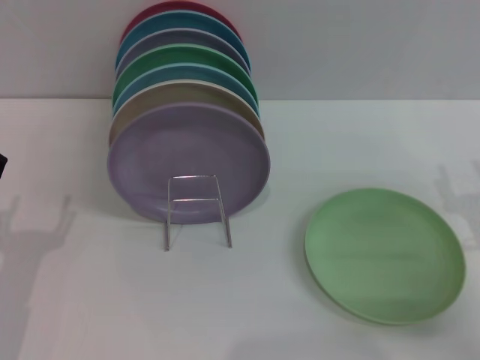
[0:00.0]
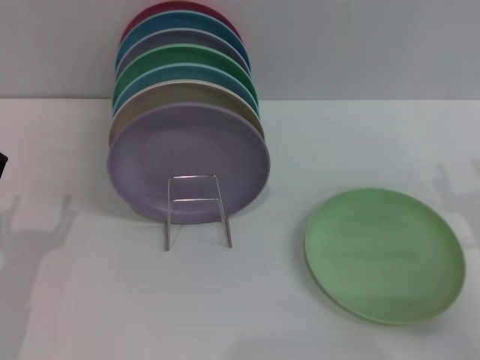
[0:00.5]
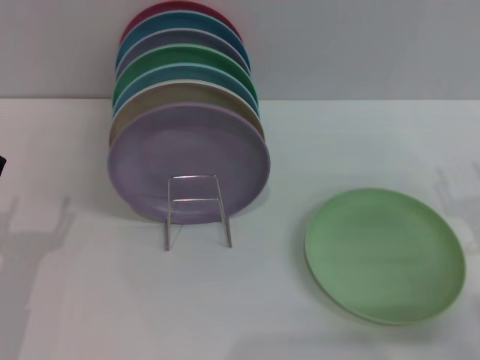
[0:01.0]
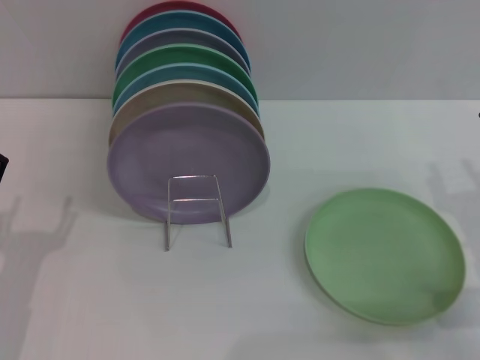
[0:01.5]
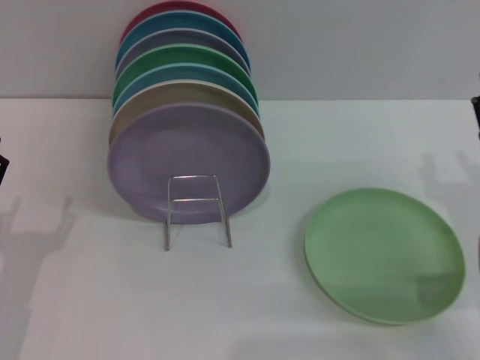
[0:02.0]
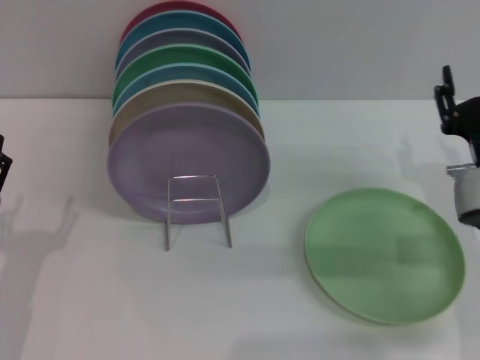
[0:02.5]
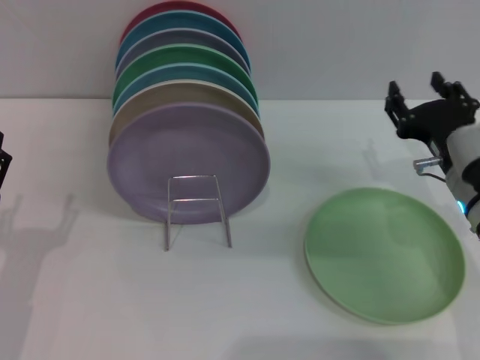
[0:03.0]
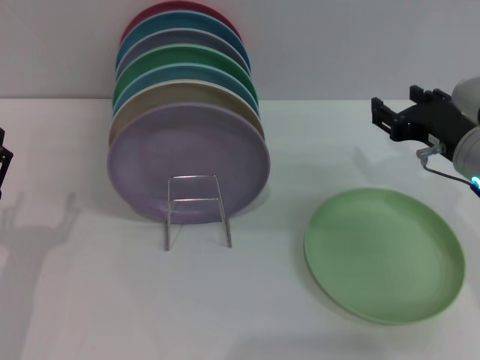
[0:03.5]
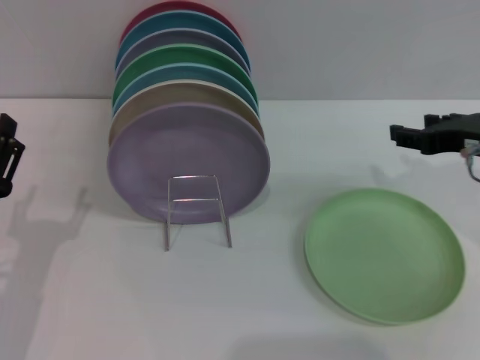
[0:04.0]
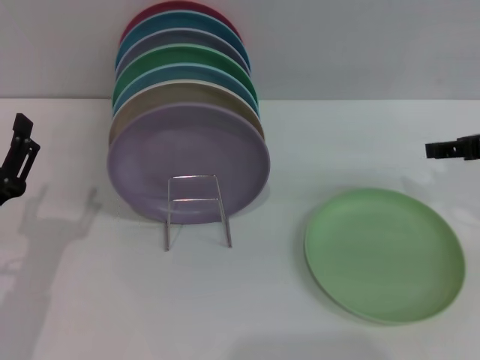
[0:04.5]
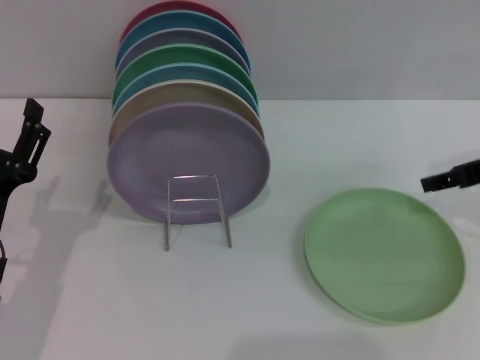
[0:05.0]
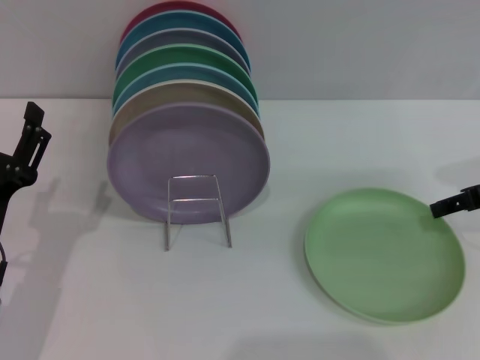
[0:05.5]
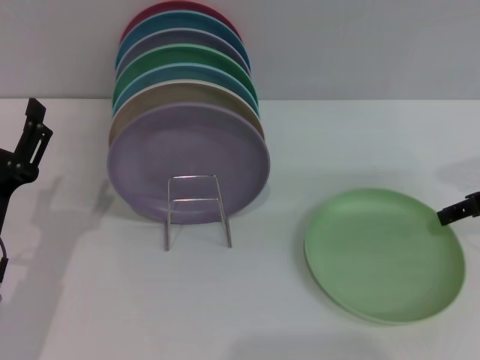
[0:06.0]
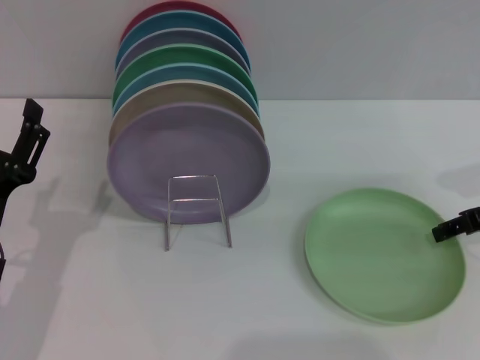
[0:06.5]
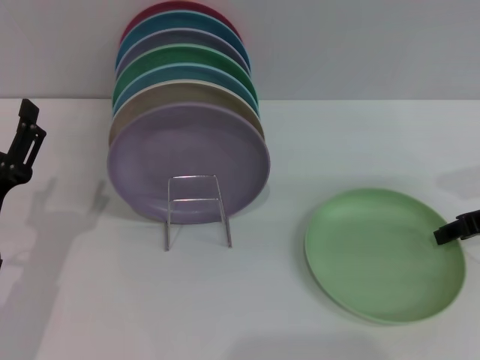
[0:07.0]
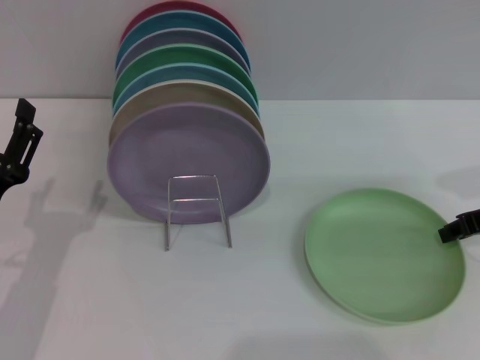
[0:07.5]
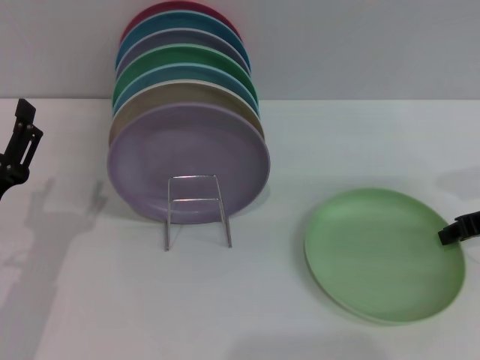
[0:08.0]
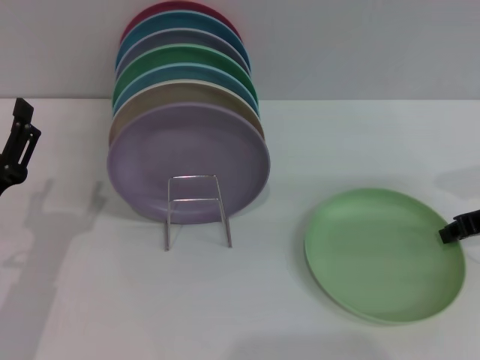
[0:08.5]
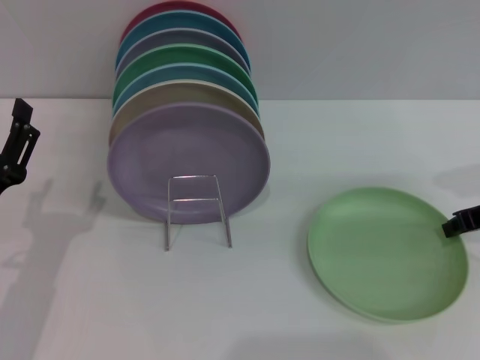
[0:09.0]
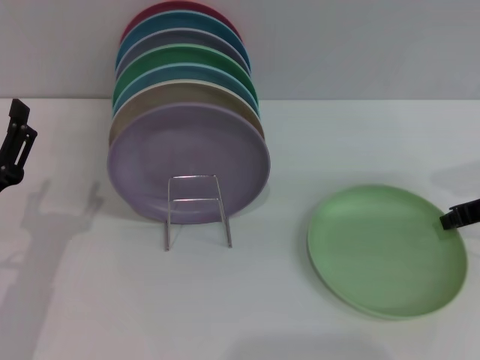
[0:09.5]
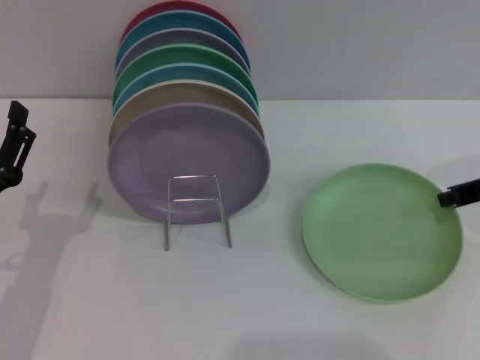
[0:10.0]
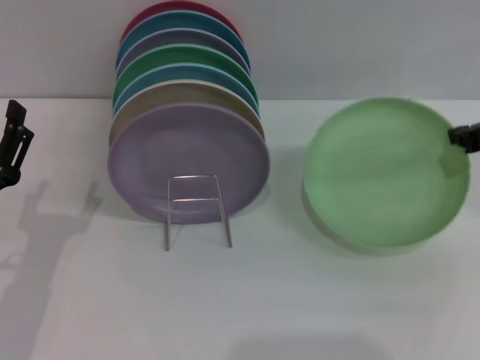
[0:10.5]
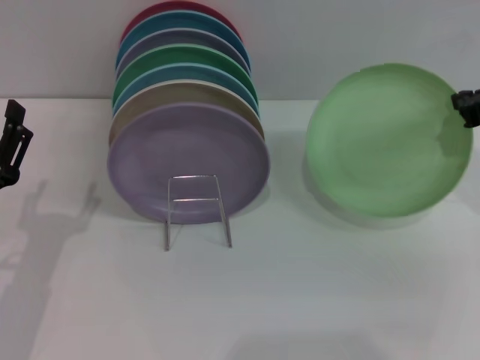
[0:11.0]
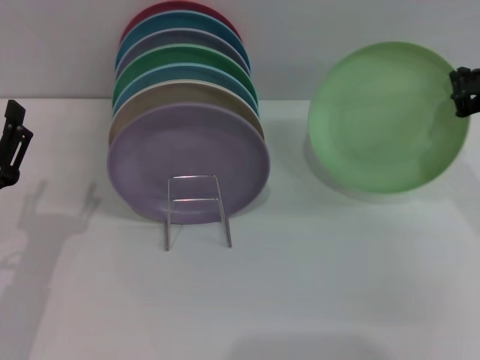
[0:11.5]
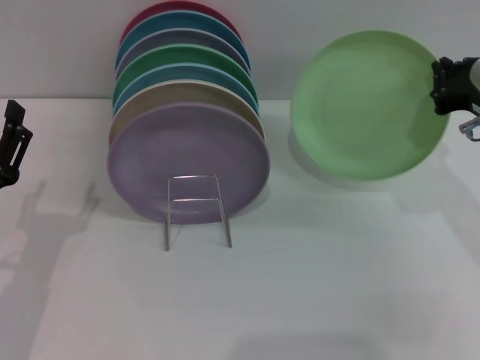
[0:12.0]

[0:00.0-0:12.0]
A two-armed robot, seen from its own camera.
Task of the whole recording: Grip the plate with one hand, pass it to the other, then set it on the shelf.
0:02.0 to 0:04.0: The right gripper goes some 10 cm upward and forward.
0:06.0 to 0:08.0: The right gripper closes up.
0:08.0 to 0:10.0: The right gripper closes its fingers.
0:10.0 to 0:12.0: The right gripper moves to the left, approximately 5 cm.

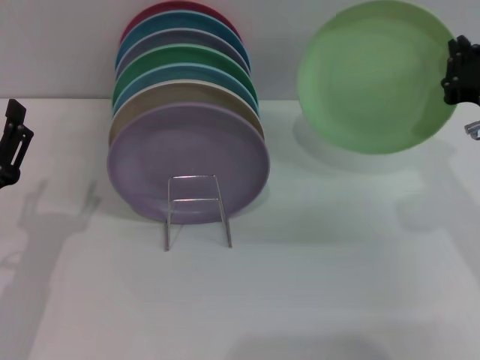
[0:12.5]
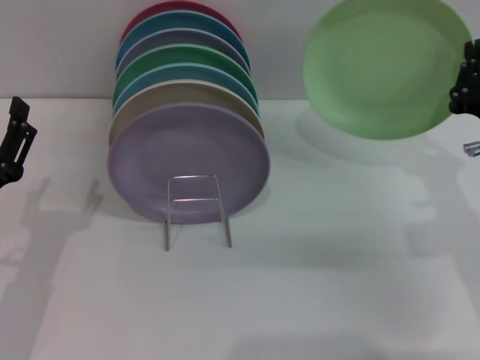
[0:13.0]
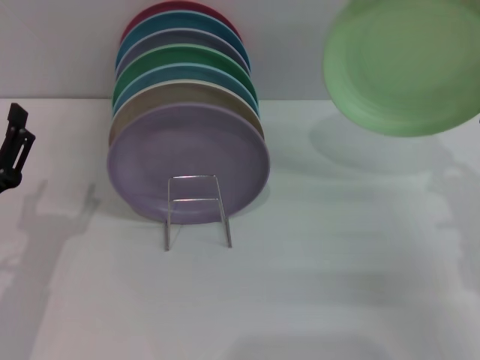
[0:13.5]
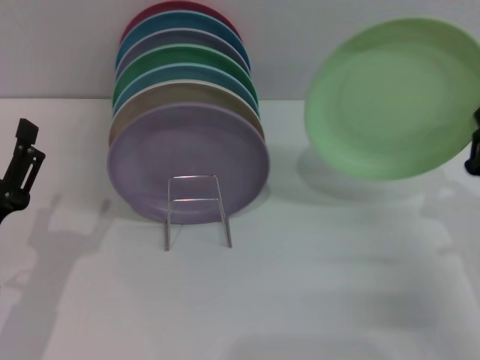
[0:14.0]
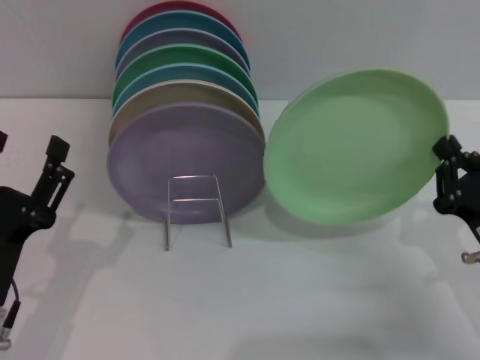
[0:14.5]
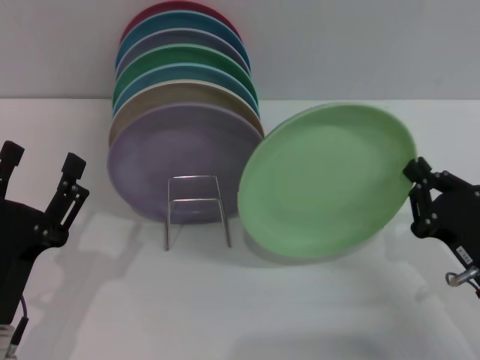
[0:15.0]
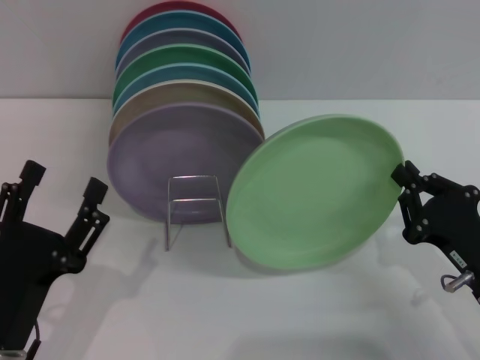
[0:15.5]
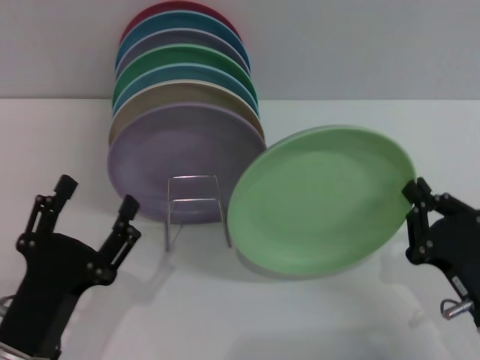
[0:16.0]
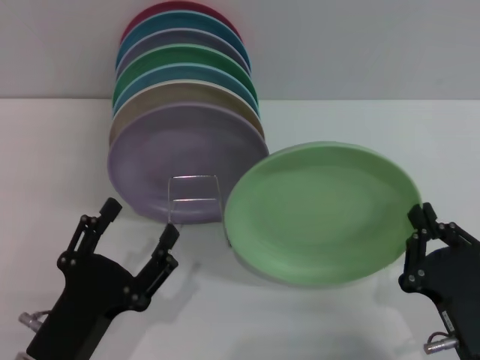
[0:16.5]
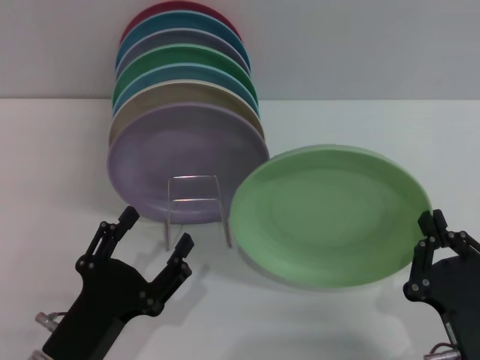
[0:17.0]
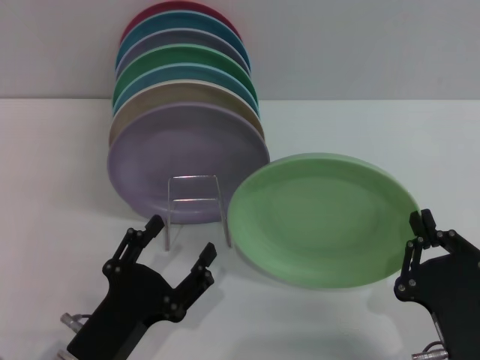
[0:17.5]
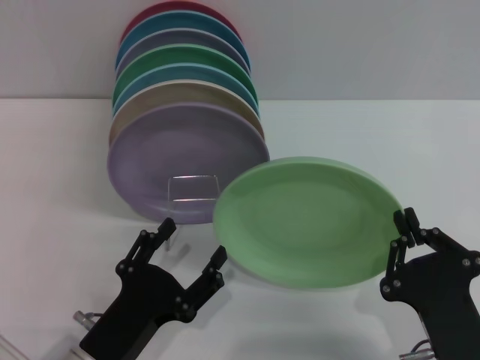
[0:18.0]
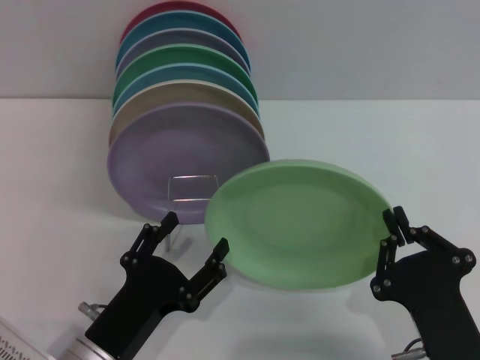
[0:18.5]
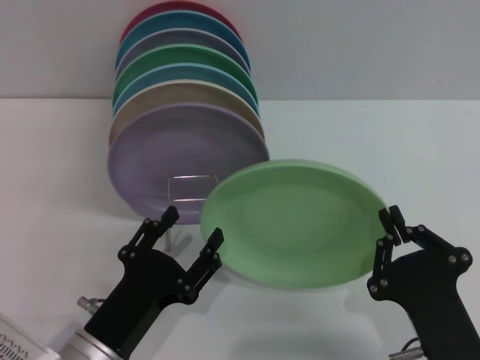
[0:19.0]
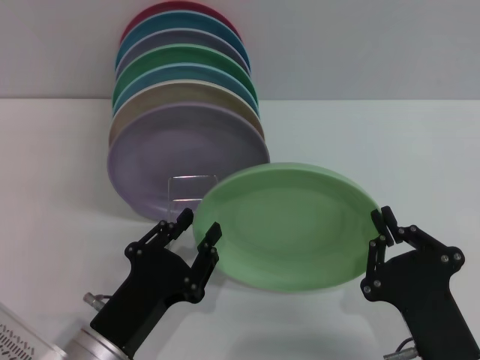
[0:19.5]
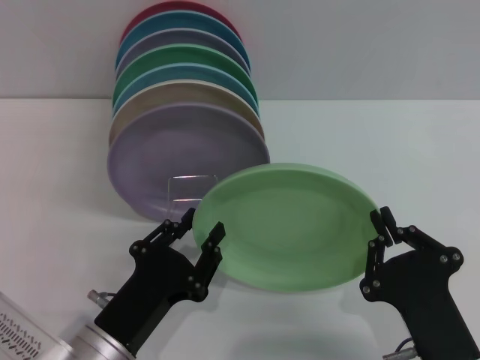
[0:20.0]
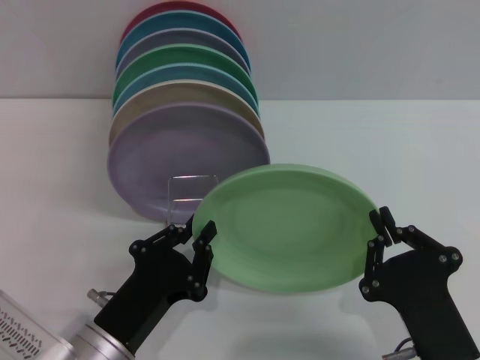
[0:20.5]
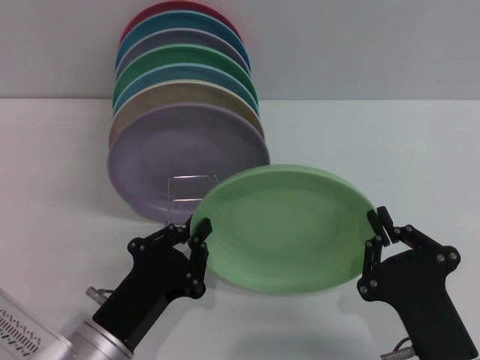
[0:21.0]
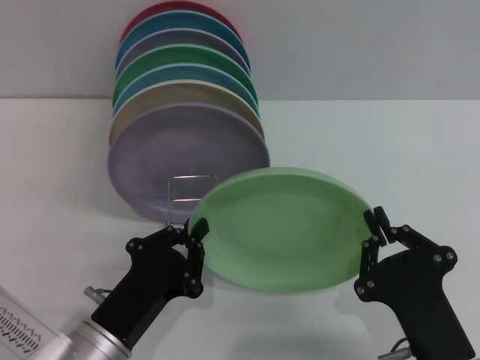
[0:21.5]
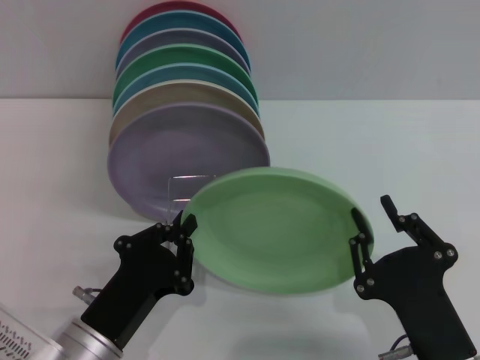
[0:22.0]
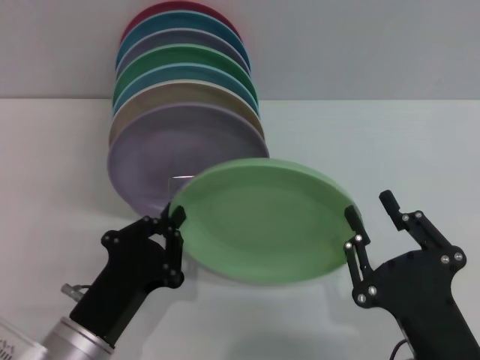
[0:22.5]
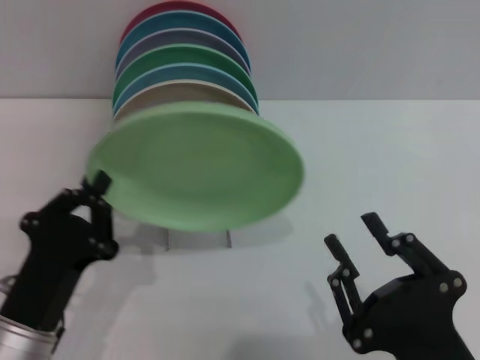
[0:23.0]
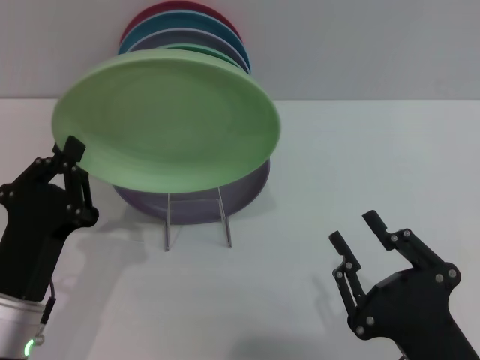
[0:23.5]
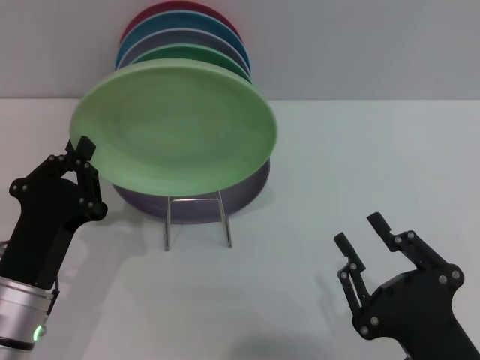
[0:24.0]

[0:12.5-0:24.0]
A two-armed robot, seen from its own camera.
Task of the whole recording: Grip the plate with one hand, pass it to the other, then set it on the shelf.
Step, 0:13.5 to 0:22.5: Pass the plate from the right gripper to the left gripper.
0:12.5 to 0:14.5: The right gripper heads downward and backward, covering approximately 15 cm.
0:14.5 to 0:16.5: The left gripper changes place by approximately 5 cm. The right gripper is displaced backward and to the left by some 10 cm.
0:16.5 to 0:18.5: The grippers make only small movements.
0:18.5 to 0:20.0: The left gripper closes its fingers.
0:20.0 to 0:22.0: The left gripper closes up.
0:22.0 to 0:24.0: The left gripper changes place by some 5 cm.

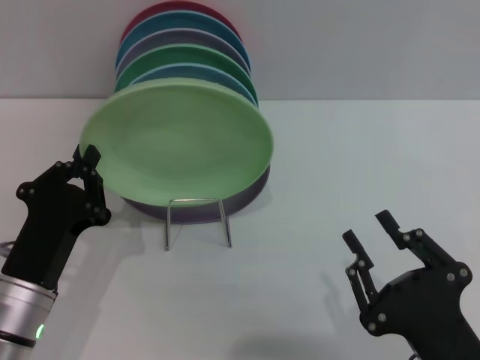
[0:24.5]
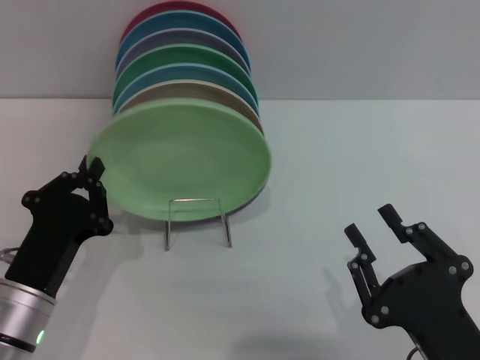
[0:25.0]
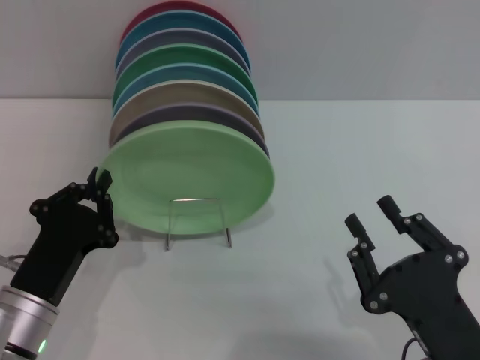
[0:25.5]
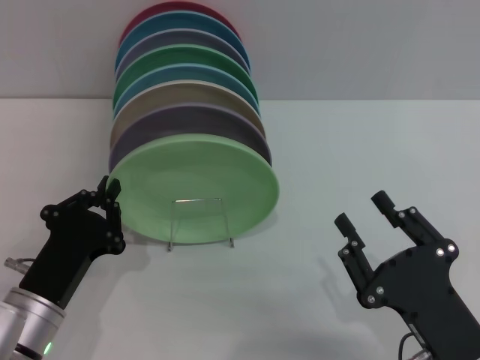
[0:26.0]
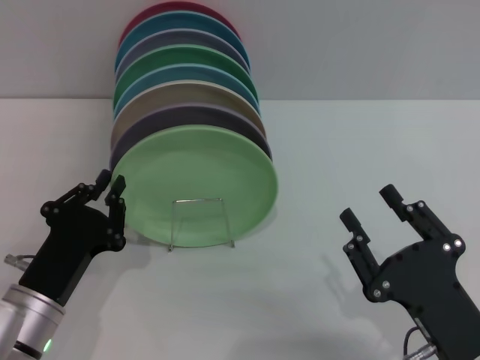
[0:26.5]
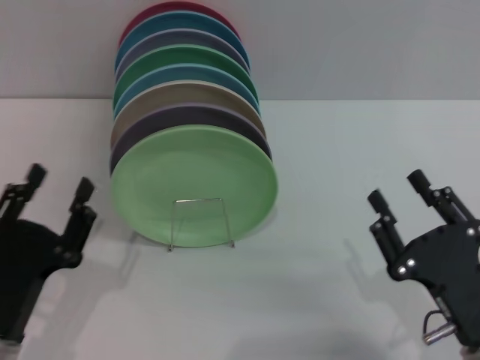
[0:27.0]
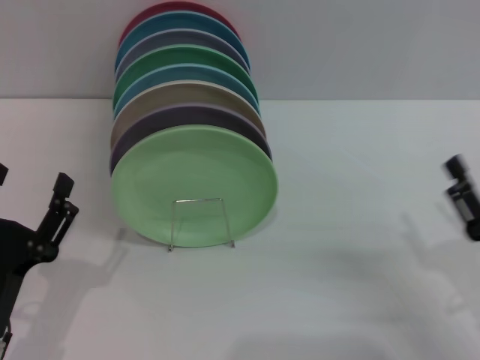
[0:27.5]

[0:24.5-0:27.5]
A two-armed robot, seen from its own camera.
Task of the whole recording: Grip the plate with one hand, pass it to the other, then set it on the shelf.
Step, 0:24.5 to 0:26.5: Place the plate on the shelf with the left gripper.
0:24.5 to 0:26.0: The grippers make only small movements.
0:26.0 to 0:27.5: The left gripper ends up some 5 cm from where it was, and opens up; the right gripper goes about 10 cm to the right, and opens up.
